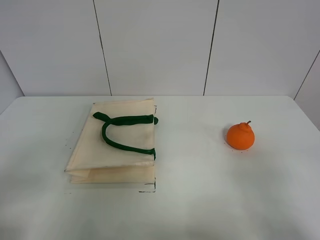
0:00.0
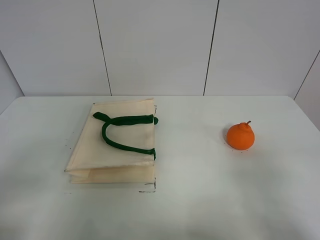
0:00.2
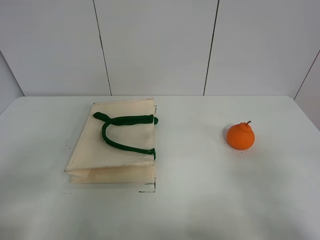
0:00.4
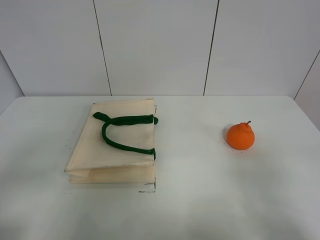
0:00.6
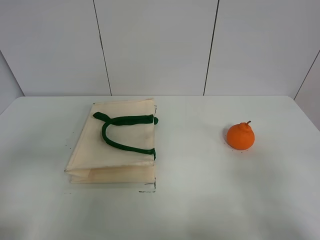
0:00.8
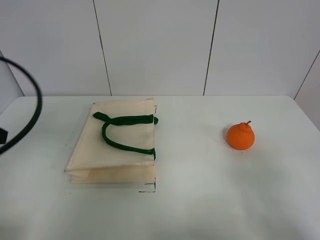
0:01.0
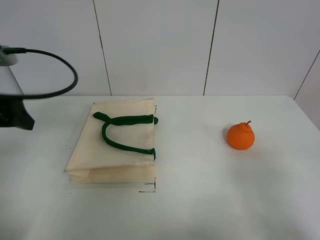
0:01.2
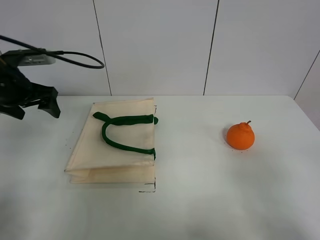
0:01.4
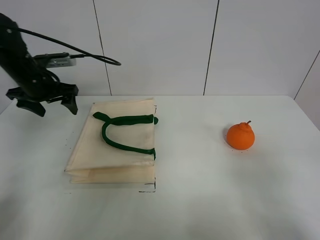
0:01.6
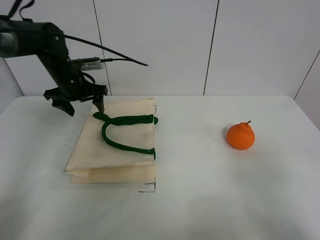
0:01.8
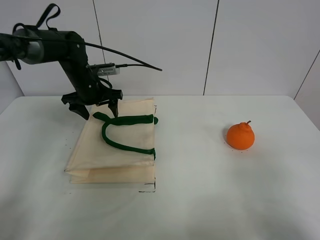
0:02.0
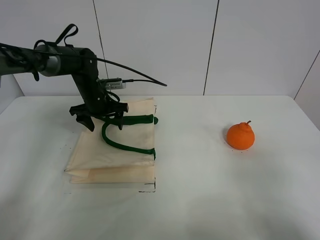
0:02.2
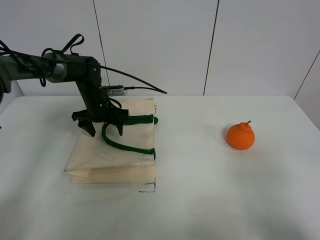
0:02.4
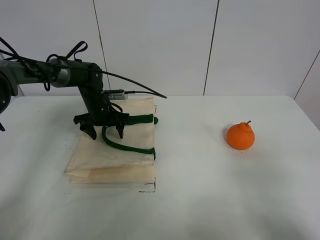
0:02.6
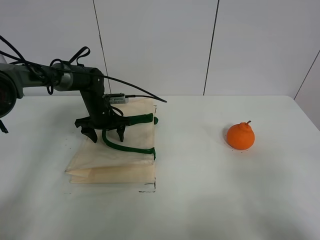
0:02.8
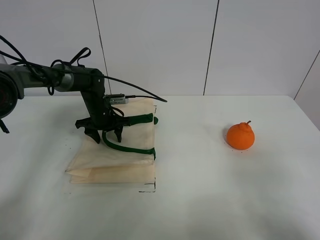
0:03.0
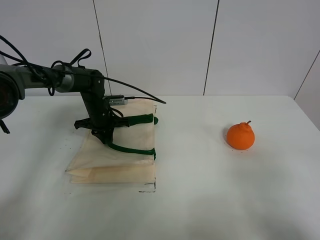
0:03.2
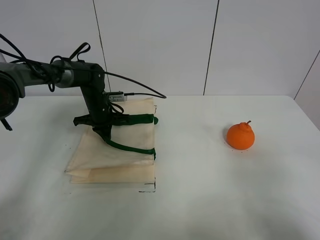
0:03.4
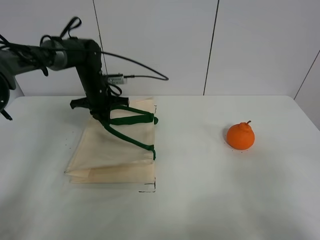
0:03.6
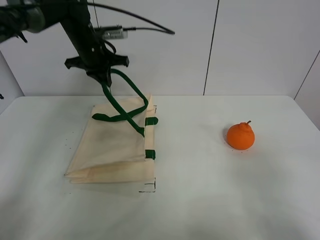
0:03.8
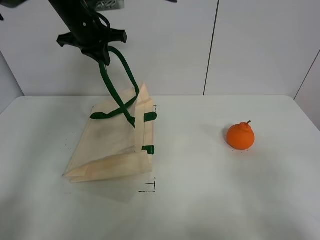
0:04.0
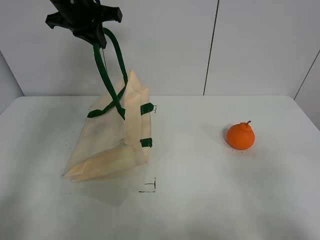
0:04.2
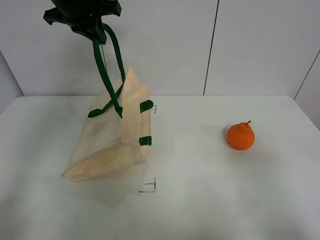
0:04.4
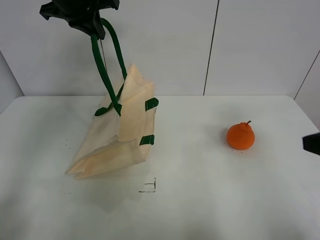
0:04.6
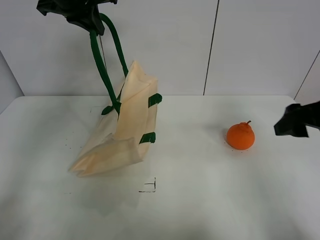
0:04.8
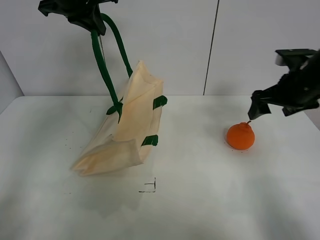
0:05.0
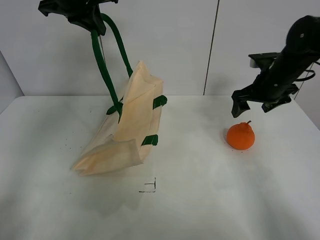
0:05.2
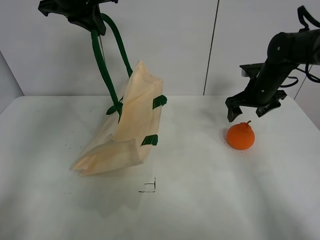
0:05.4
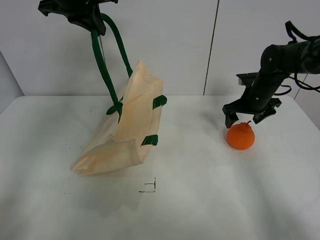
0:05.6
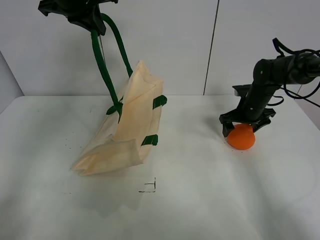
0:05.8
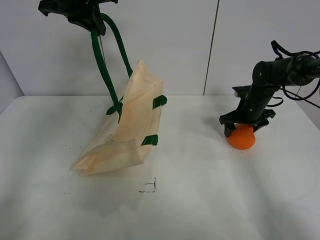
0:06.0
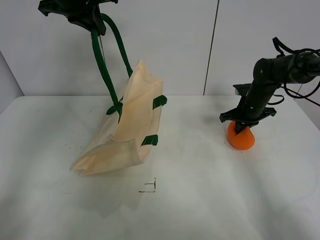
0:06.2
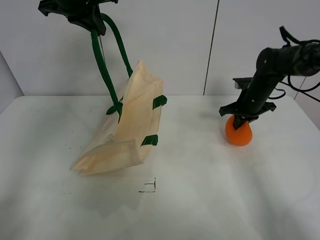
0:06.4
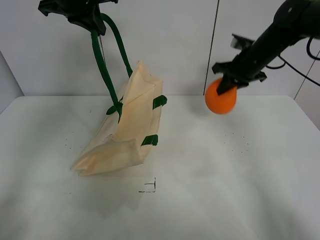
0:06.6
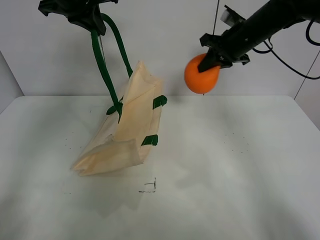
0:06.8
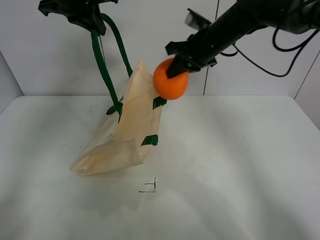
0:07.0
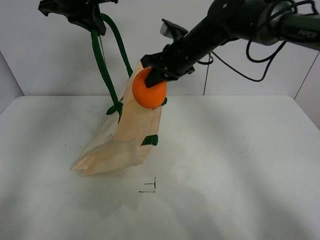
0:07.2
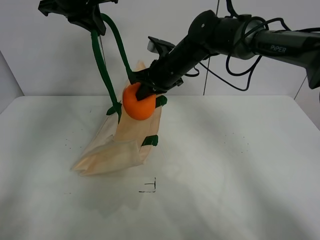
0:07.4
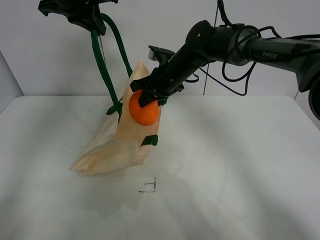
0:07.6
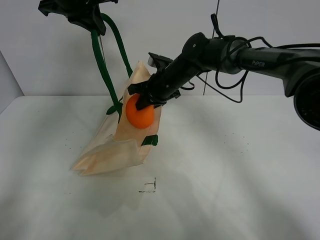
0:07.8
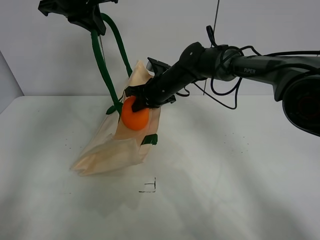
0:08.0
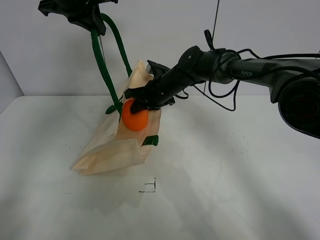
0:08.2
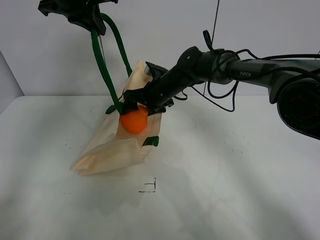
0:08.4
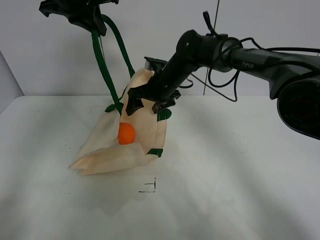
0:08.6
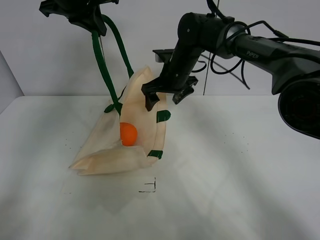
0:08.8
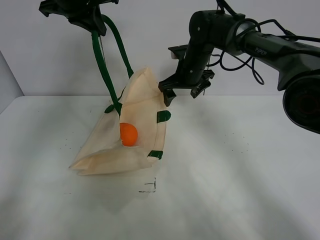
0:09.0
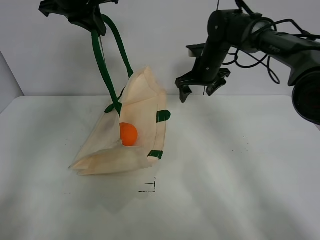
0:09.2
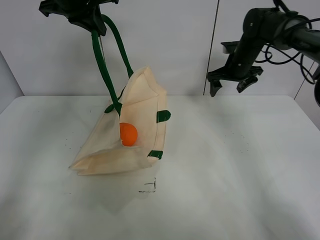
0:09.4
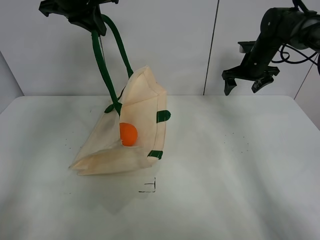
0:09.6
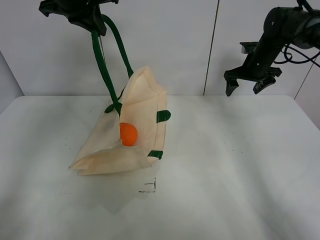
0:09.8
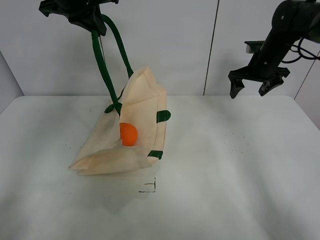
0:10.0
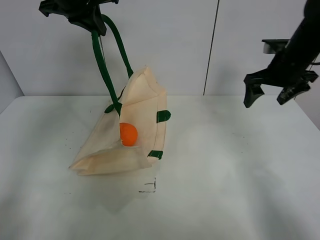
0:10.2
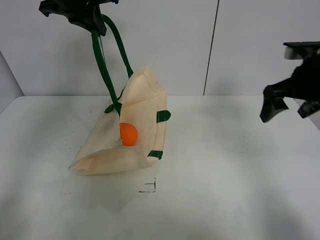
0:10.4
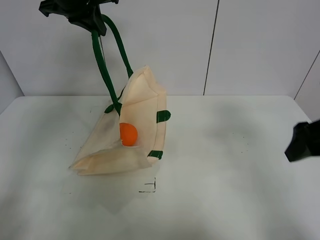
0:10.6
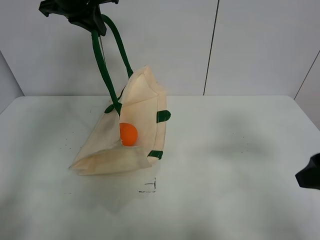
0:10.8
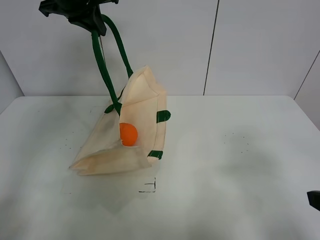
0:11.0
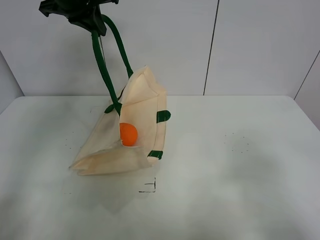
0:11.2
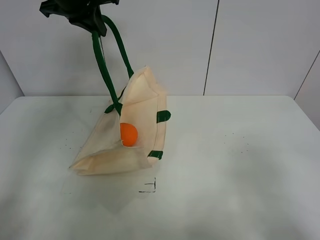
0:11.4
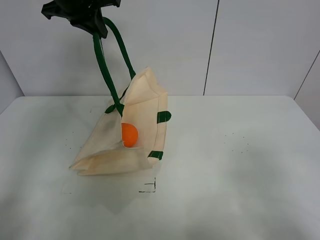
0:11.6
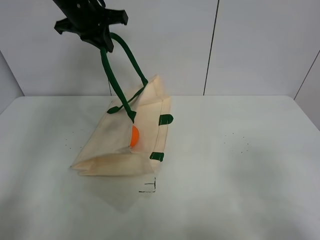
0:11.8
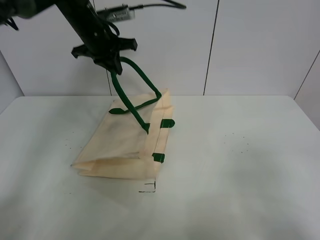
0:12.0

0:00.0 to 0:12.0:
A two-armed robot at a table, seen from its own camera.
Task of the whole recording: open the white linen bag and put the orange in the bag.
Step, 0:00.0 to 0:04.4: Lift the handbag with left gripper.
Step, 0:04.6 to 0:06.2: Grasp the orange with right gripper.
Step, 0:06.4 to 0:09.0: Place the orange in the handbag with right gripper.
0:00.0 to 0:01.6: The left gripper is displaced forward by approximately 40 cm.
0:01.6 to 0:03.0: The left gripper is displaced downward and to the right by roughly 15 cm, and closes its fingers.
0:03.0 to 0:04.4: The right gripper changes place by some 5 cm; the left gripper goes some 30 cm upward, and closes its fingers.
0:04.4 to 0:06.0: The right gripper goes approximately 40 cm forward and downward.
0:06.0 to 0:07.6: The right gripper heads to the left and upward, covering approximately 25 cm, and closes.
0:07.6 to 0:09.0: The right gripper heads to the right, covering roughly 5 cm, and opens up.
0:09.0 to 0:10.4: The right gripper heads to the right, backward and upward, covering approximately 25 cm.
0:10.4 to 0:12.0: The left gripper goes about 15 cm downward and forward. Meanwhile the right gripper travels backward by approximately 30 cm.

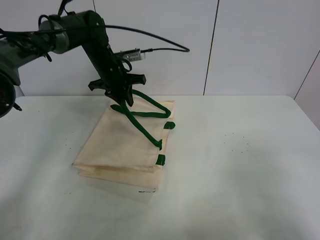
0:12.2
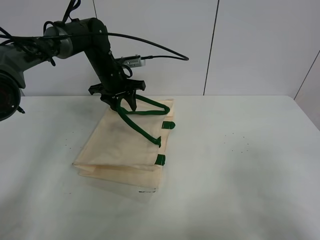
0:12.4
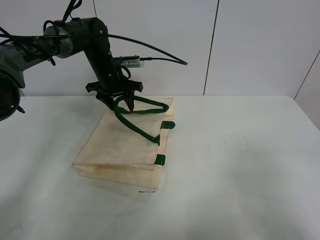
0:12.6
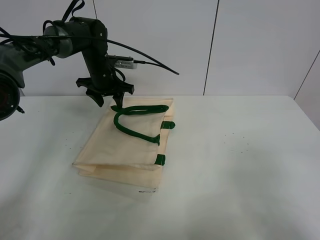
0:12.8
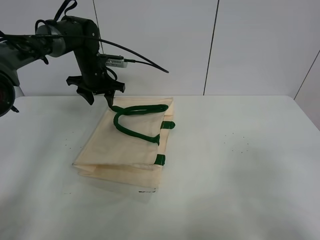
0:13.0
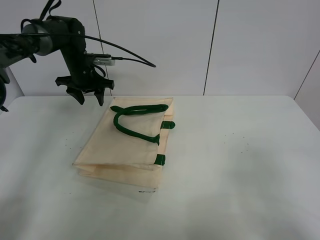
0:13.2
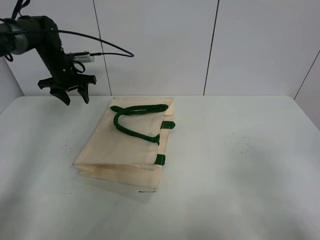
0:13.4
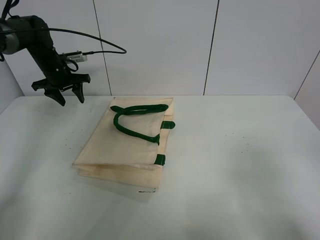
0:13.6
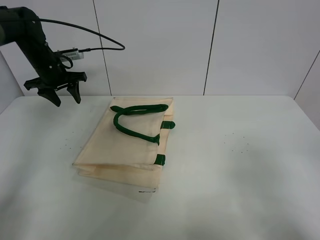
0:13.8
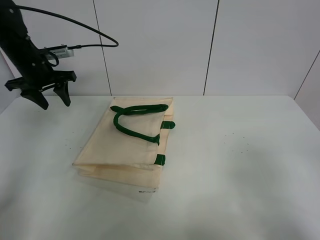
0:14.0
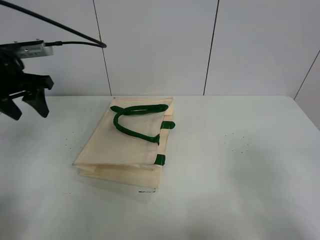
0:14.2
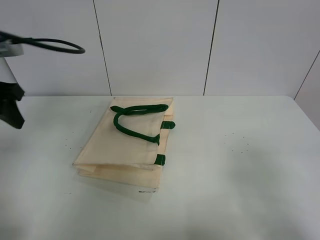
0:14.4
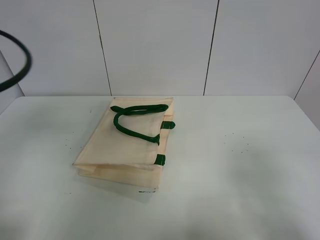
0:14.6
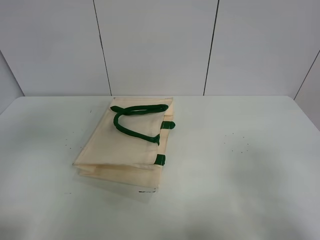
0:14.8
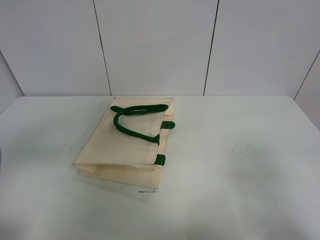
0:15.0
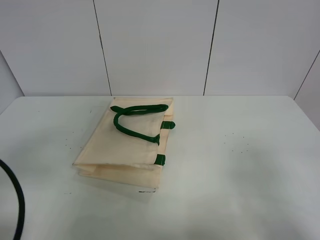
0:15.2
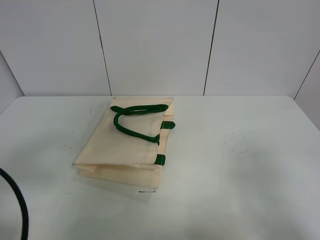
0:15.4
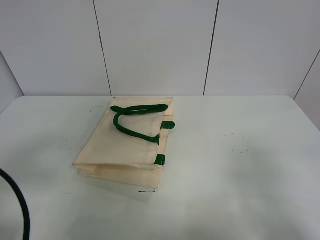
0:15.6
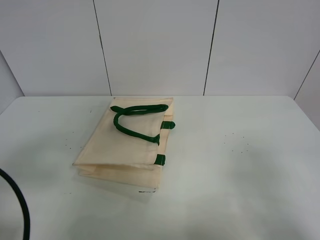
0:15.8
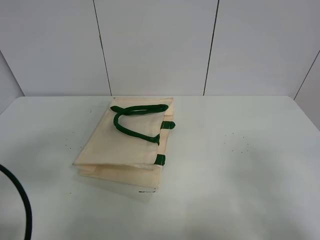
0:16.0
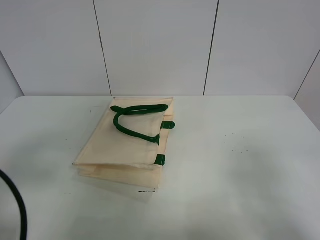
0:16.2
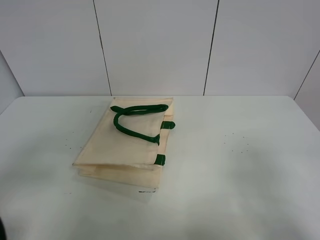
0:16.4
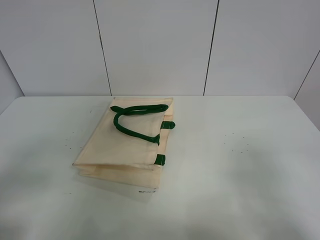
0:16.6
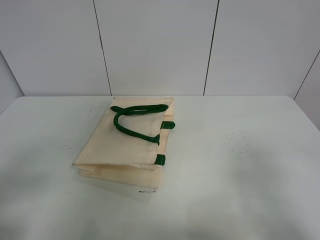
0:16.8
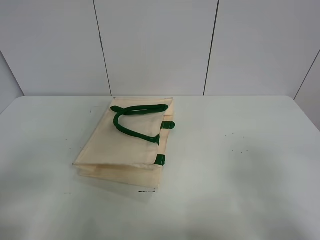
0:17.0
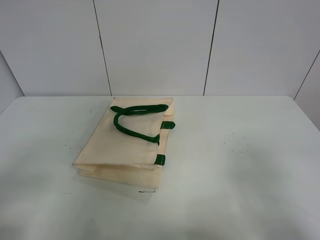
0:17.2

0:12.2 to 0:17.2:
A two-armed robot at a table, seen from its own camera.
Task of the whole recording: open the white linen bag and put the orange in the bag.
0:12.2 to 0:13.8: The left gripper moves to the left, roughly 15 cm.
0:13.8 to 0:15.6: The left gripper is displaced backward by roughly 40 cm.
0:15.6 to 0:17.2: The left gripper goes roughly 5 cm backward.

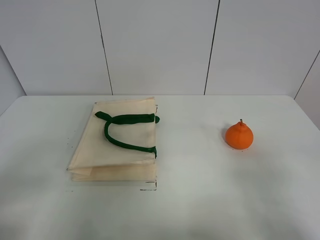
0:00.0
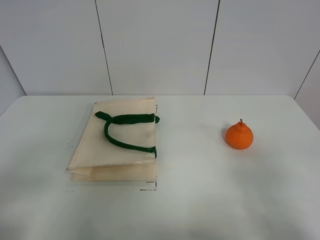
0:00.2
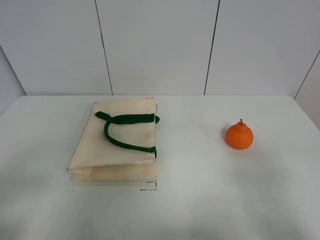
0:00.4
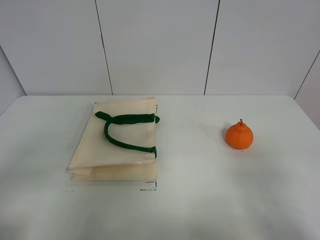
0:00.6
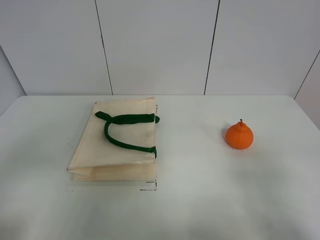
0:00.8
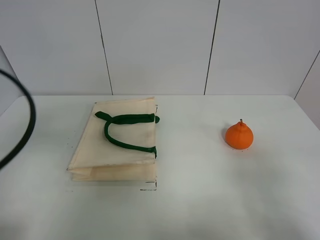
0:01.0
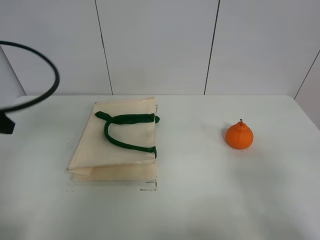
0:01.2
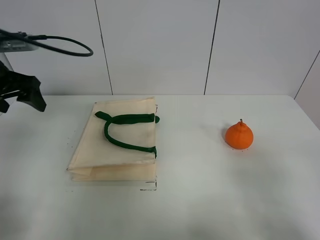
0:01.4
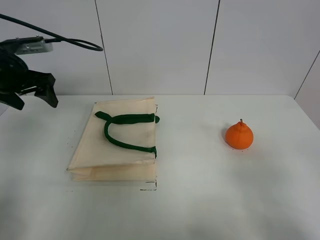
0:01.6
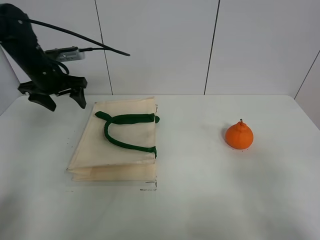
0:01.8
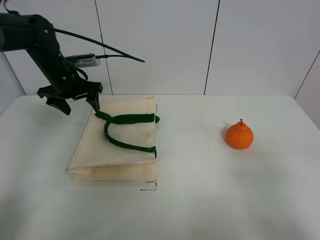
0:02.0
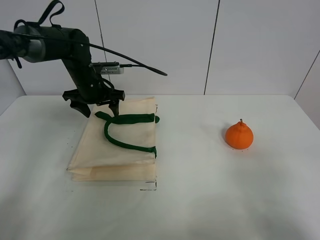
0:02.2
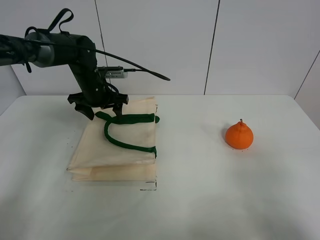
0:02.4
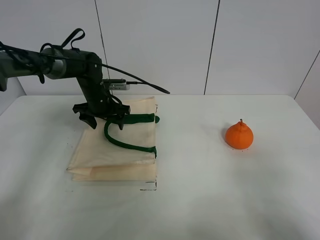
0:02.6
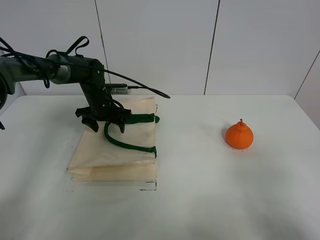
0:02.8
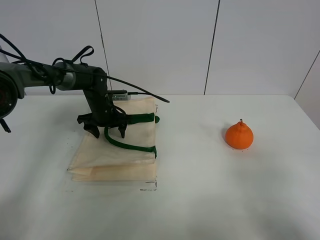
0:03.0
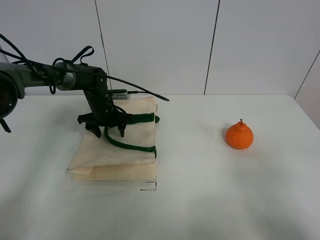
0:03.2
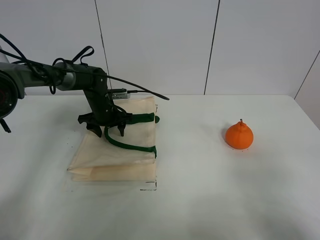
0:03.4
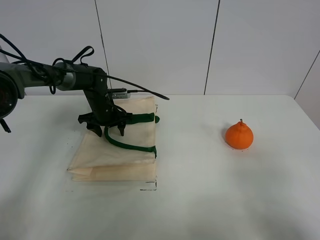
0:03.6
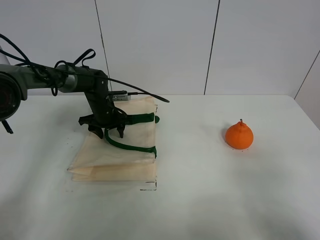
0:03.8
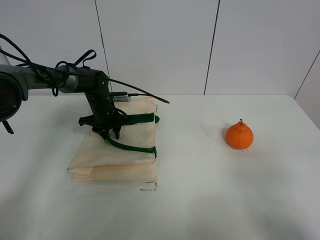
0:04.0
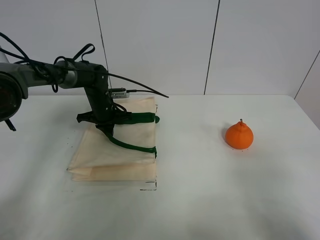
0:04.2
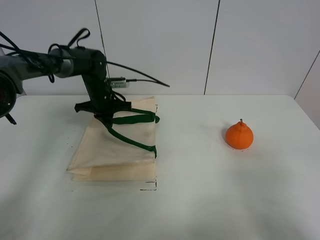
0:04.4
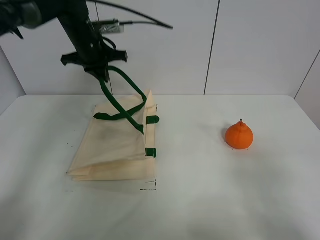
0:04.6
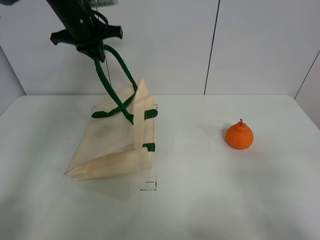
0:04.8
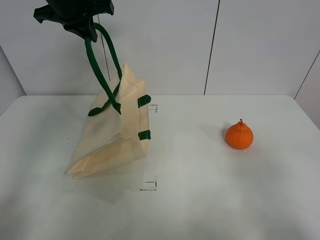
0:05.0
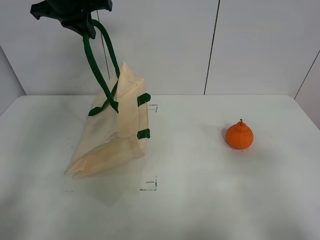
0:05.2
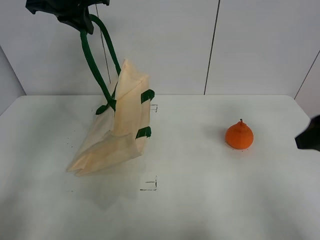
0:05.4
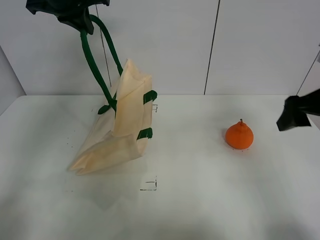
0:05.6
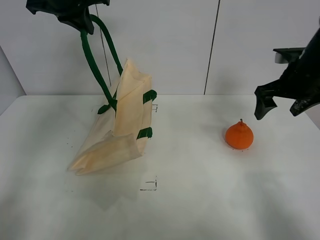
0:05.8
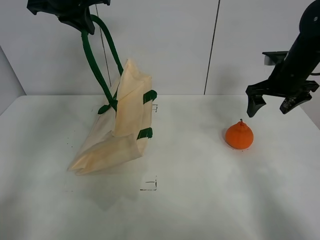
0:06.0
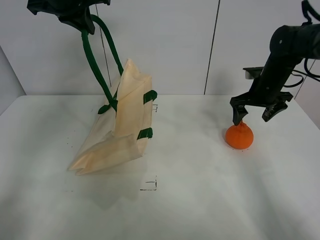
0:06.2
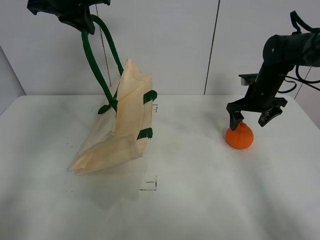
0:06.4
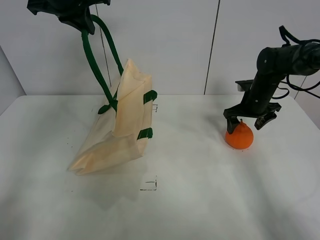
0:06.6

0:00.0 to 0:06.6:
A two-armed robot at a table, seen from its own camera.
Task of the whole recording: open the white linen bag and put the orange in the bag.
Step, 0:00.0 to 0:05.2: Lift the handbag with left gripper.
0:00.0 to 0:01.6: The left gripper shifts some 35 cm forward.
0:01.6 to 0:03.2: The left gripper goes approximately 25 cm downward, to the right and forward.
0:03.2 to 0:05.0: The left gripper is displaced upward by about 30 cm, and closes its fingers.
0:05.0 to 0:06.6: The right gripper goes approximately 40 cm forward.
